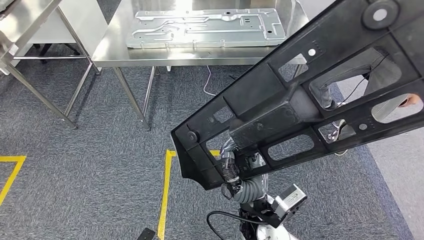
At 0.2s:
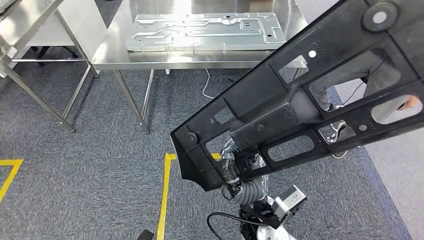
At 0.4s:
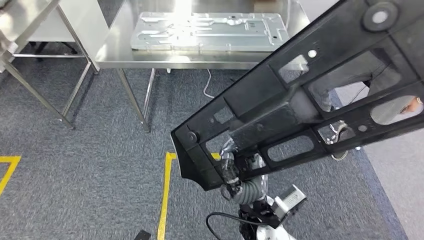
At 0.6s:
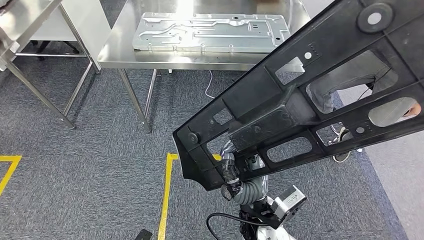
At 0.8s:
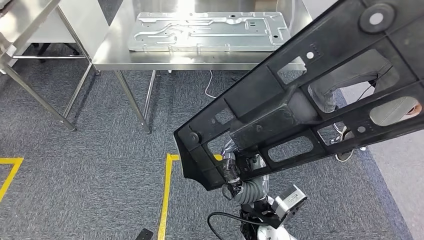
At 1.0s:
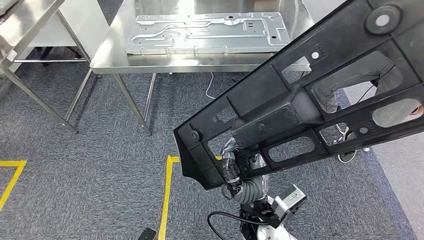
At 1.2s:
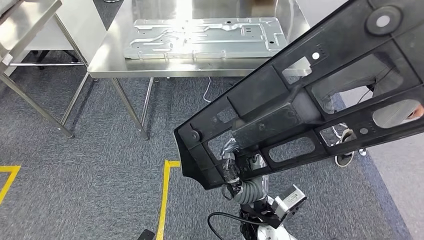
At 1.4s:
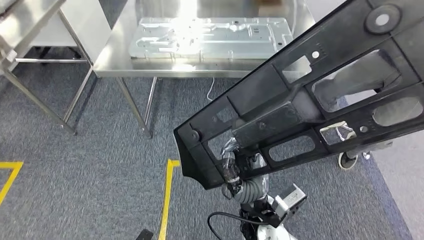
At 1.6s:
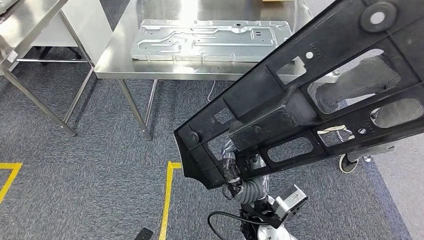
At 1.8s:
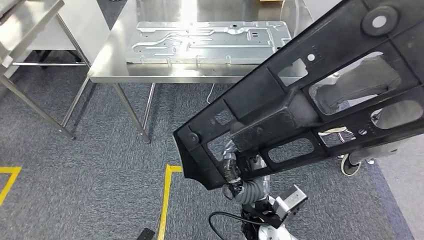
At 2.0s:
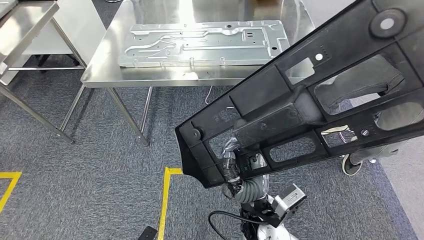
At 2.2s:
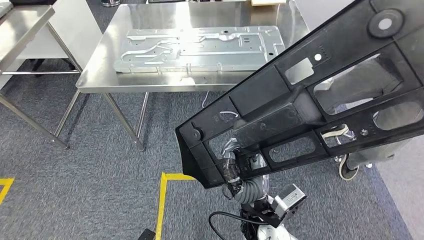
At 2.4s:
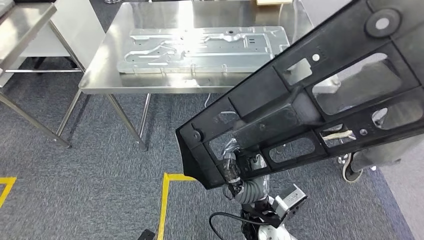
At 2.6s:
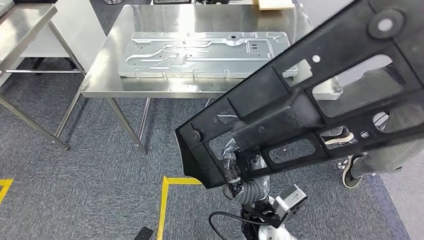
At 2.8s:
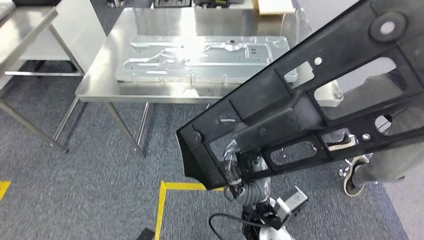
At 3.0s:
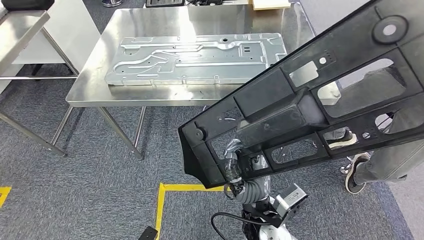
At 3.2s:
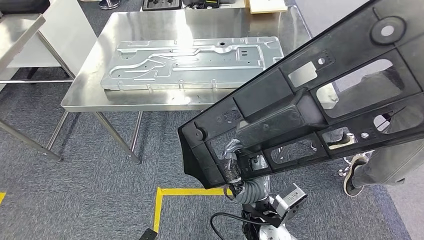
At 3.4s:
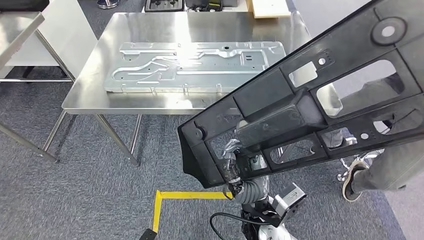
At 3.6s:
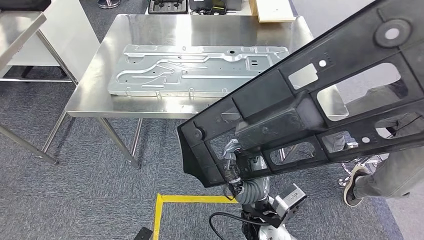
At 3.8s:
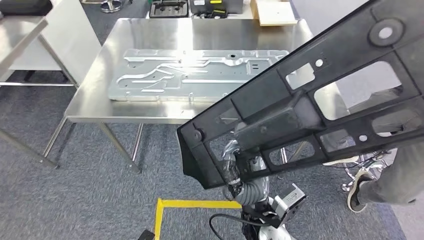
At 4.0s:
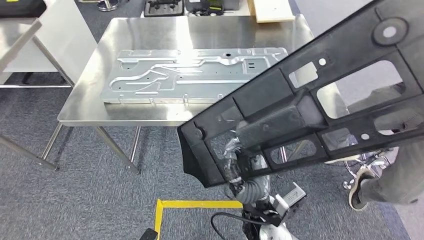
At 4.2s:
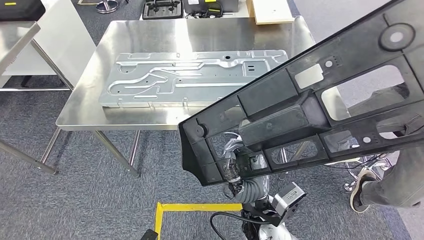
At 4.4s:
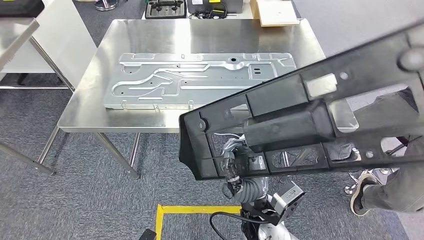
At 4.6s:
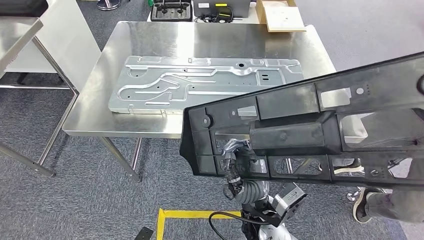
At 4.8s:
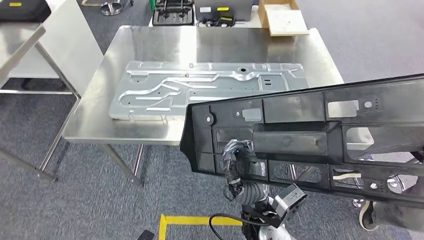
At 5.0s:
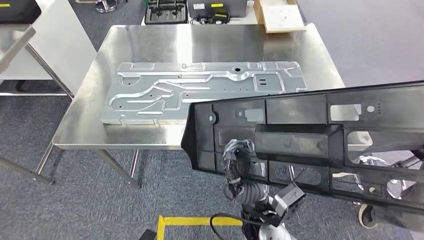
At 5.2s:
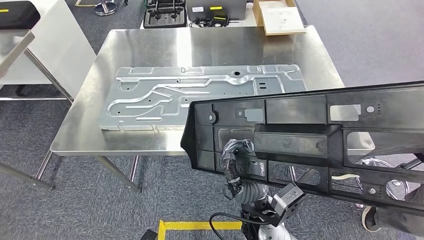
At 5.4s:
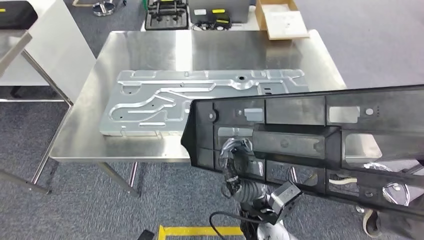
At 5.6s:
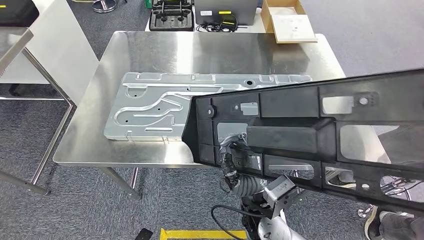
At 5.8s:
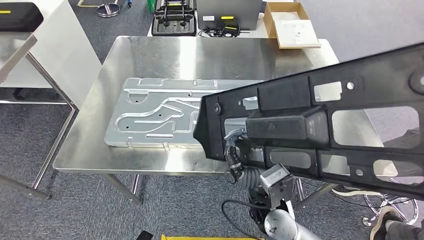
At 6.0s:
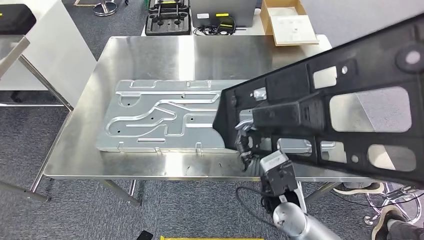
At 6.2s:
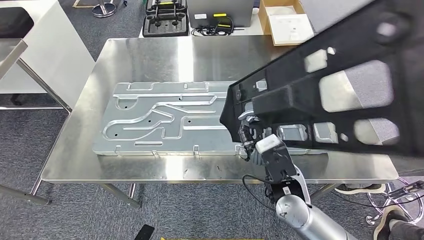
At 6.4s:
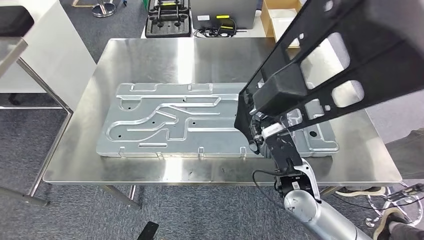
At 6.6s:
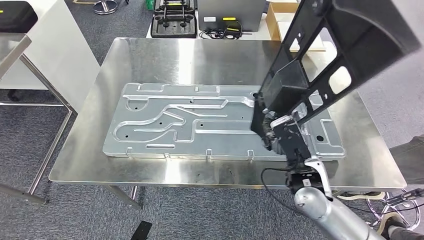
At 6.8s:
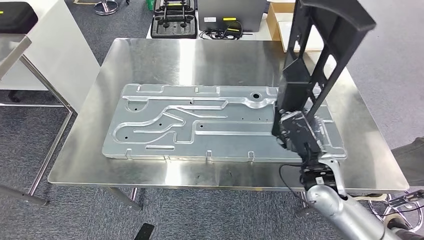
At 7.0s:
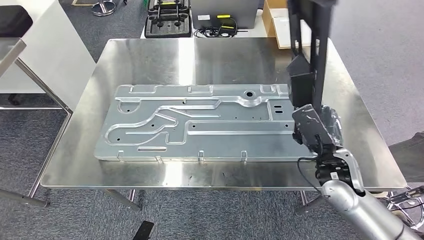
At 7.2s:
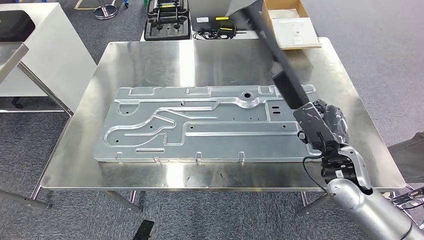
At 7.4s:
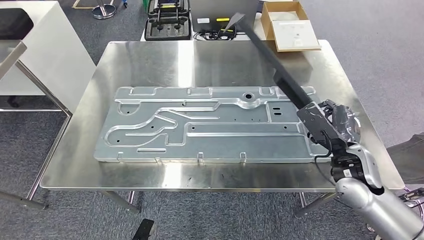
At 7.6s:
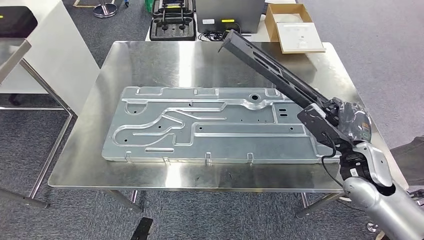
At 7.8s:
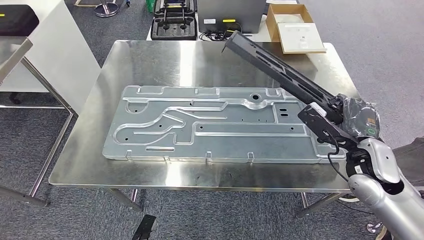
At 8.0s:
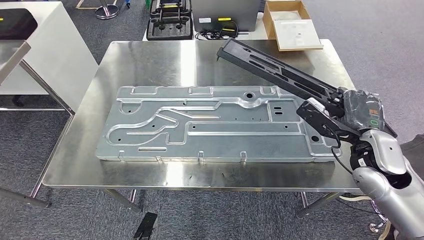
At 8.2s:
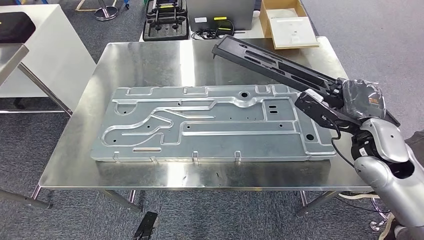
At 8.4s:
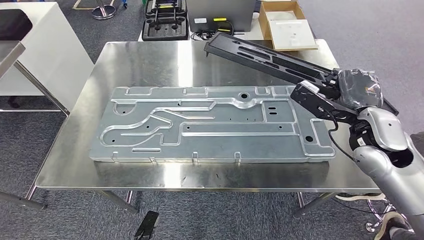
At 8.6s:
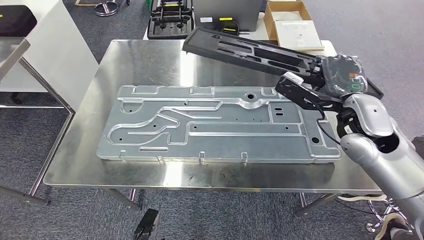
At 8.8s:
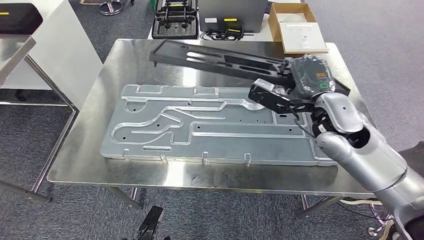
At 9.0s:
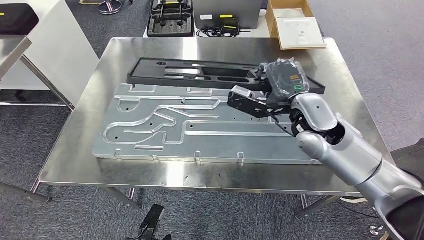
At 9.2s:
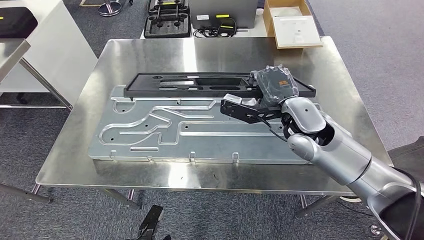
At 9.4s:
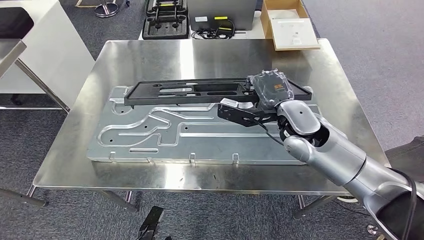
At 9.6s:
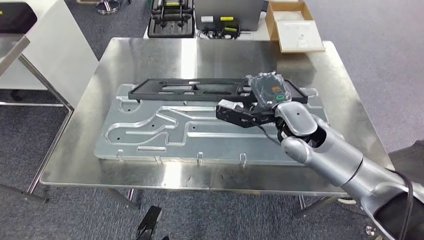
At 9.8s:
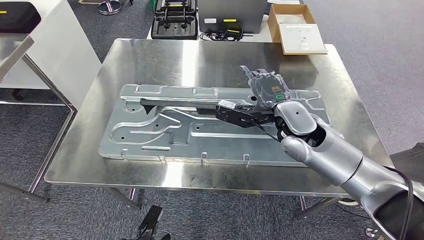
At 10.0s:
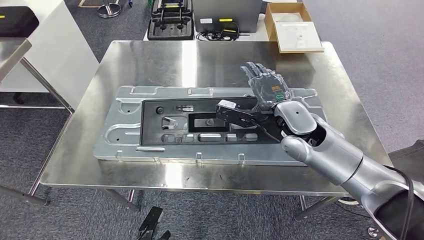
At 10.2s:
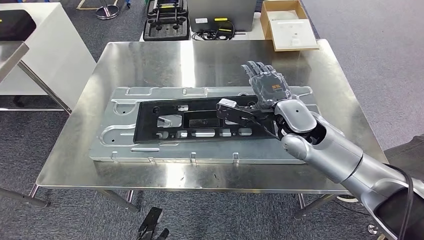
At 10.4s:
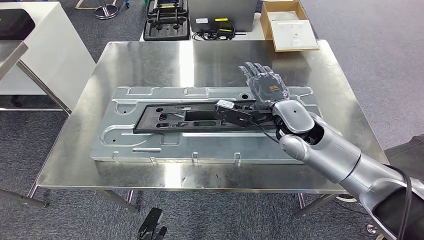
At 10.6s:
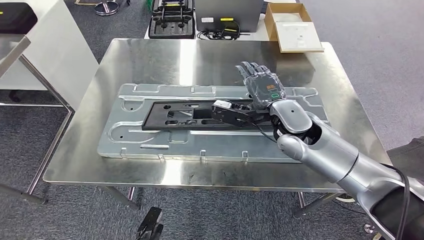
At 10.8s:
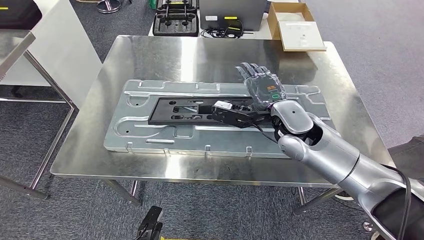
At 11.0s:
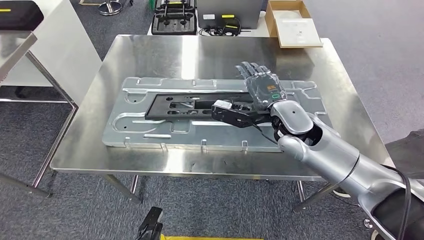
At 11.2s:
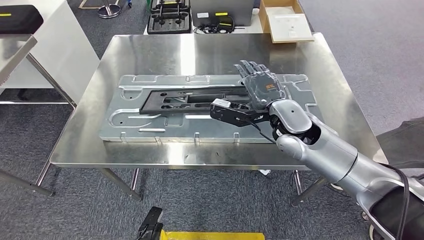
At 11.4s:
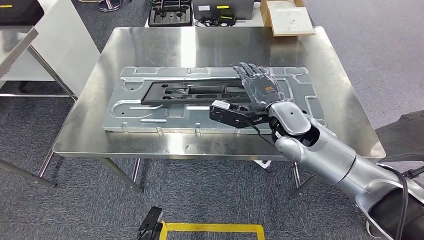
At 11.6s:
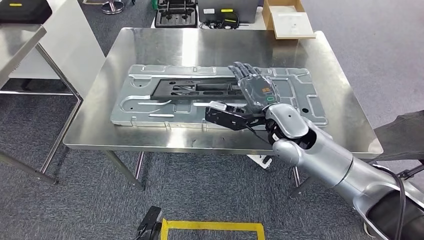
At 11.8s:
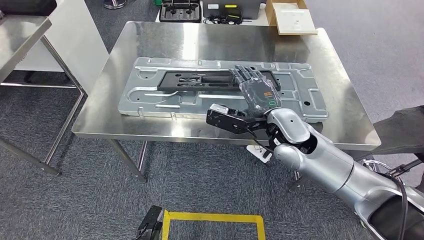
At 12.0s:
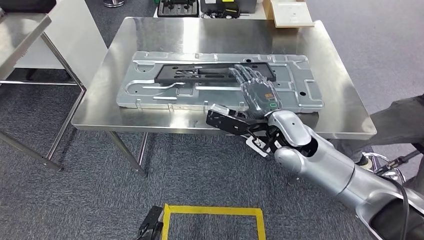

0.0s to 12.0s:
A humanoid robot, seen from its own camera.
Step, 0.0s to 5.0s: Move the large material to the workbench.

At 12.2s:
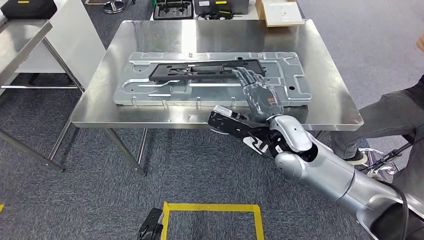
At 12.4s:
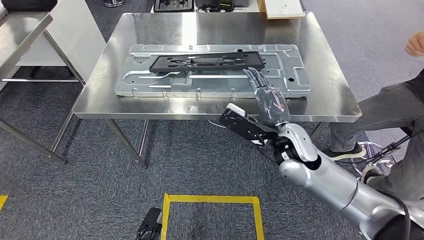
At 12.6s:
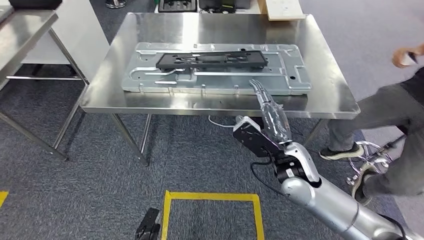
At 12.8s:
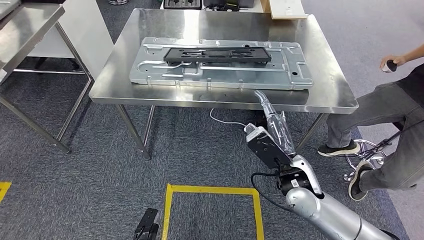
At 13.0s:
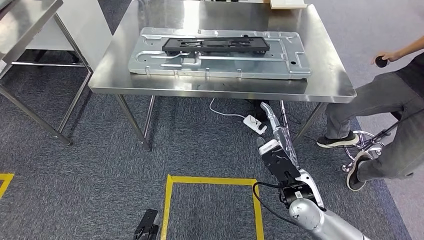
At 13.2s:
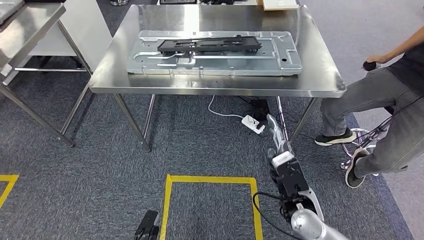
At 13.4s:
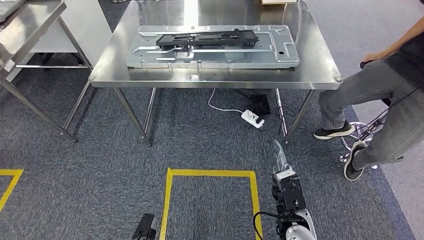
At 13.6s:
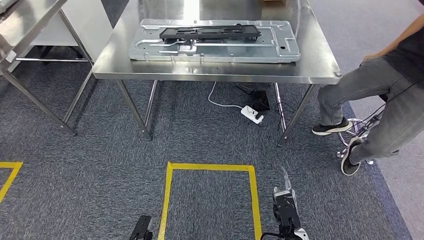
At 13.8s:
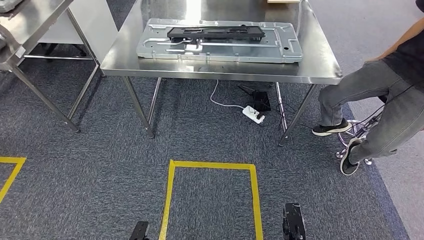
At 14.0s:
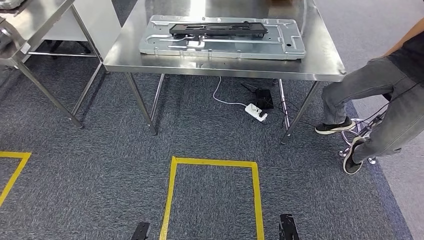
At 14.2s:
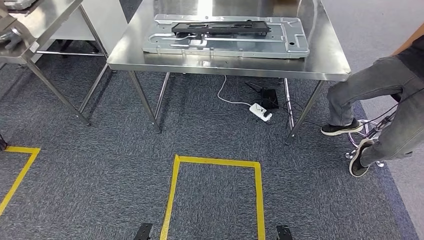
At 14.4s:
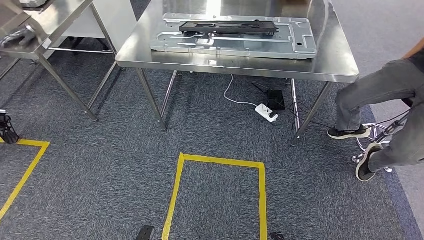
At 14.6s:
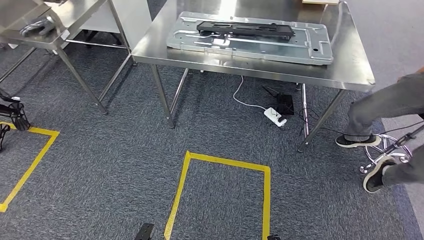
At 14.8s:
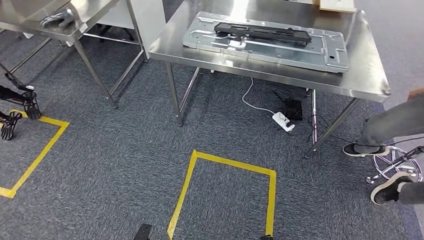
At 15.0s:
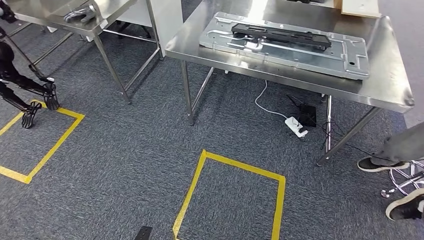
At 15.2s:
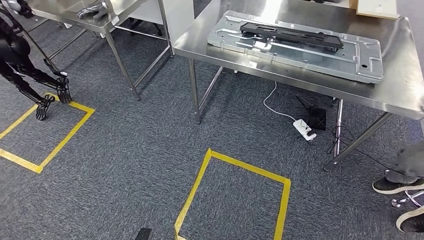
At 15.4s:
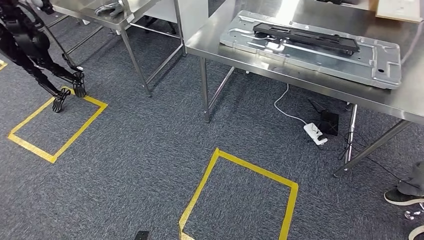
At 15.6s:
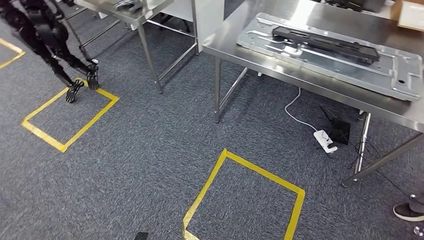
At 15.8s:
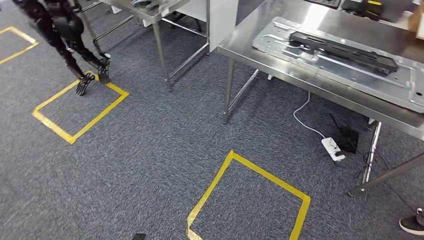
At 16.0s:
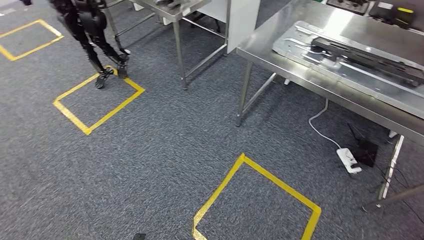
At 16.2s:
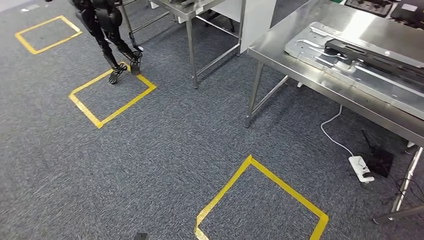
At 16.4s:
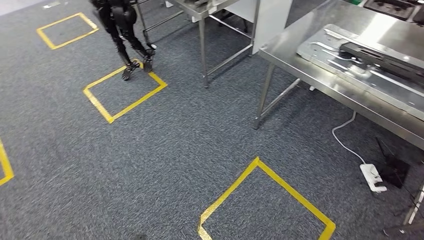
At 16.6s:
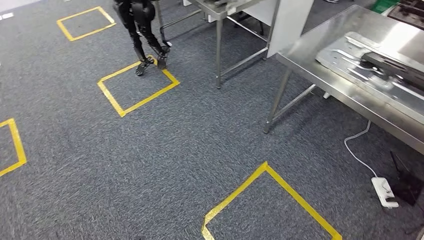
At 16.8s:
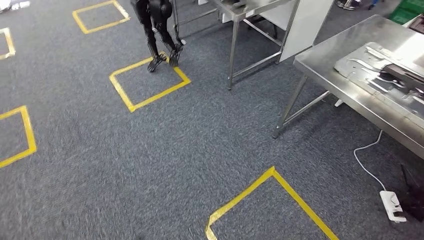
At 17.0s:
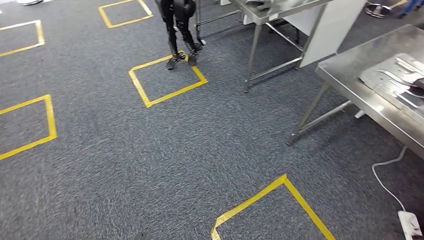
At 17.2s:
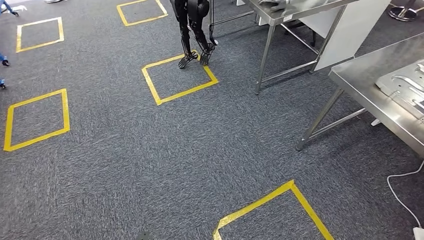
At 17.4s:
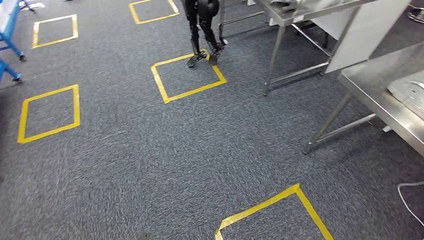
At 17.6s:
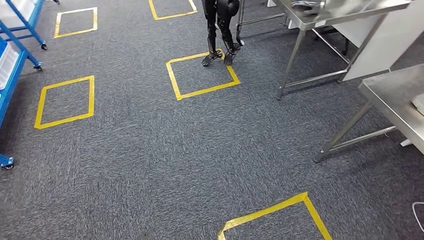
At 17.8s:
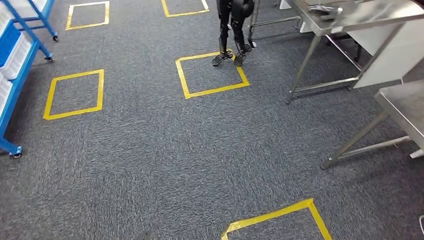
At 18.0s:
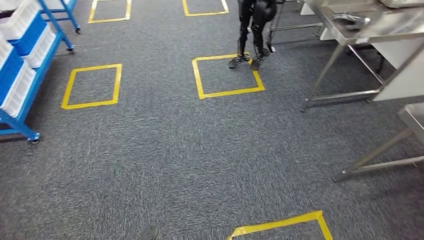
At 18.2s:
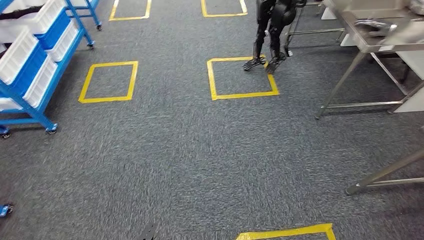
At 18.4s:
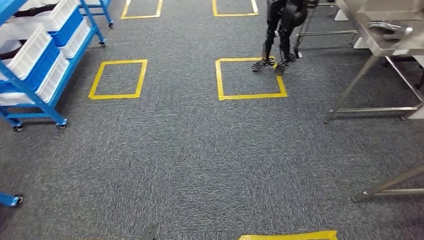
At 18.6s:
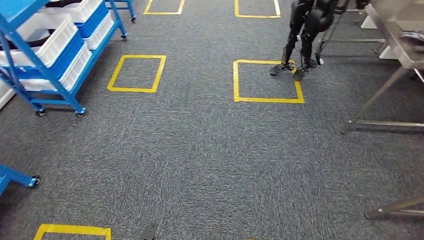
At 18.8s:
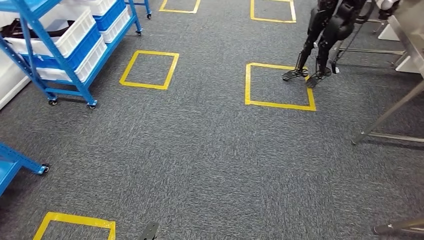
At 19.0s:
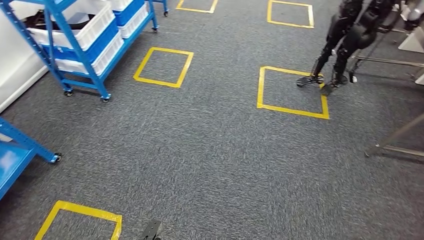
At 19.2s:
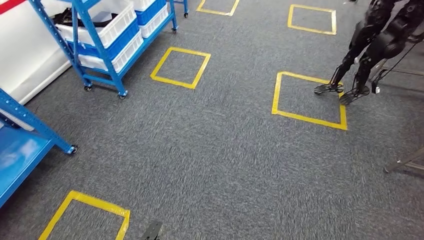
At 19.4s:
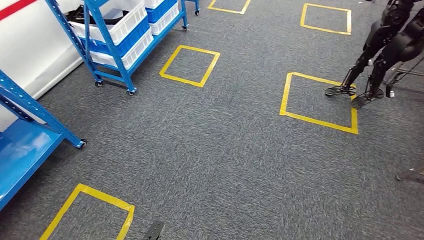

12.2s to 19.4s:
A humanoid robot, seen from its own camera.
Step, 12.2s to 15.0s: Insert the large material into the corresponding slot on the workbench.
